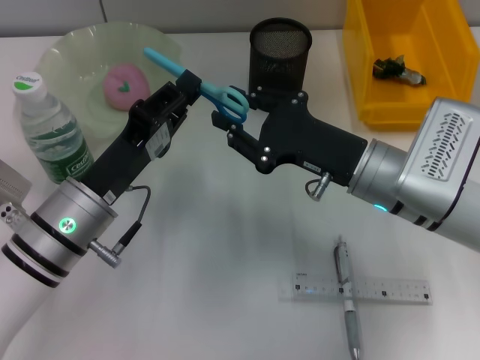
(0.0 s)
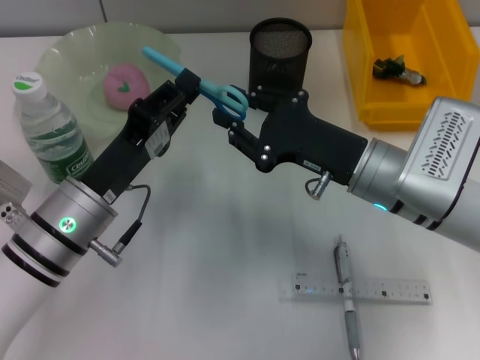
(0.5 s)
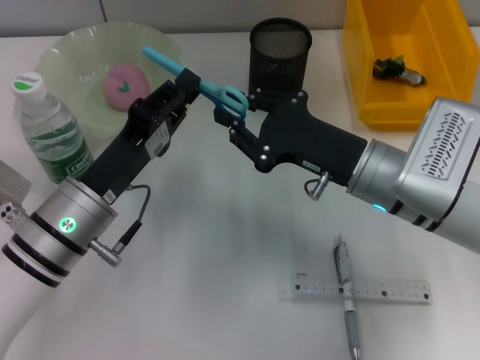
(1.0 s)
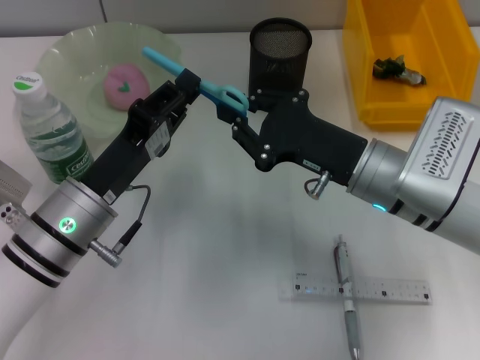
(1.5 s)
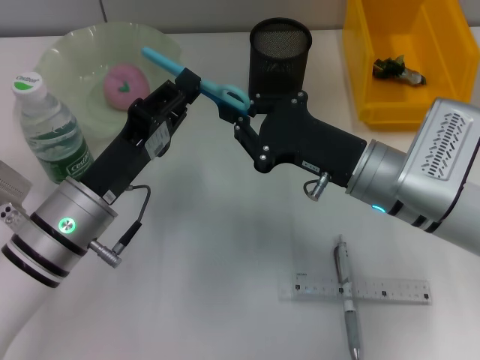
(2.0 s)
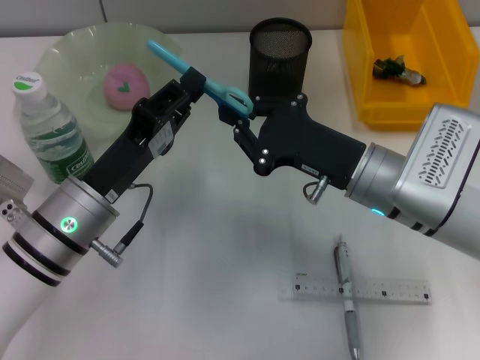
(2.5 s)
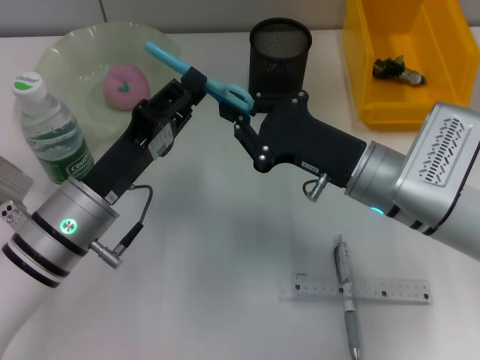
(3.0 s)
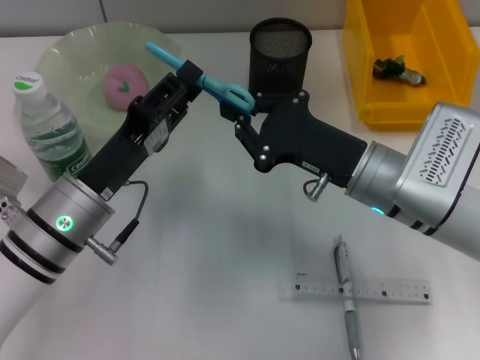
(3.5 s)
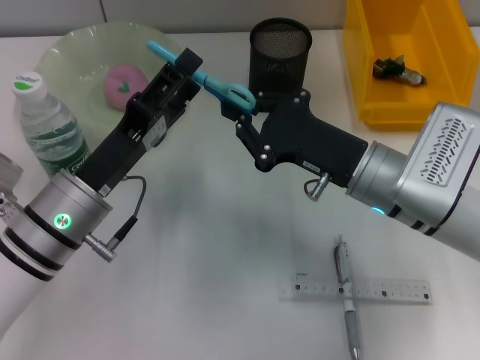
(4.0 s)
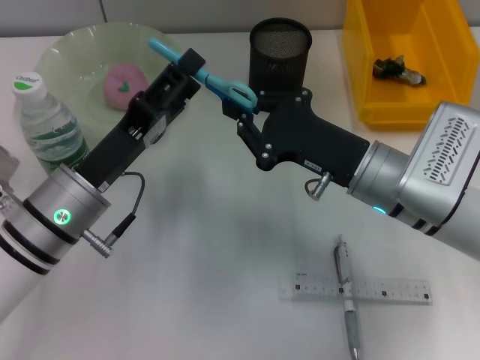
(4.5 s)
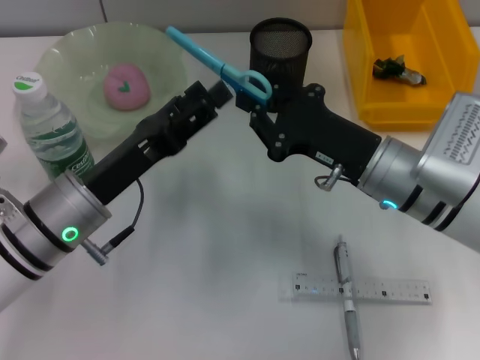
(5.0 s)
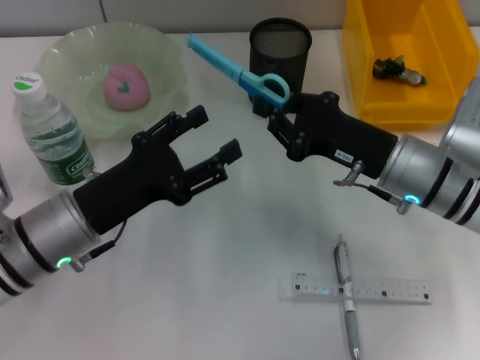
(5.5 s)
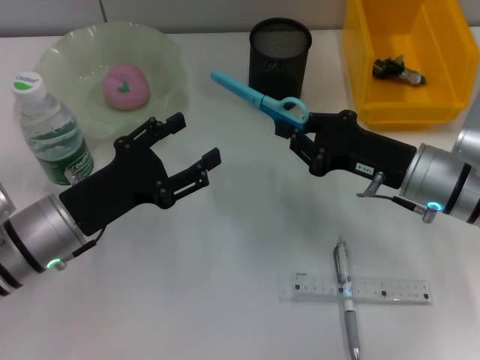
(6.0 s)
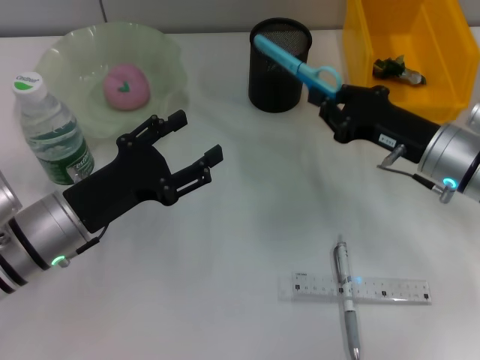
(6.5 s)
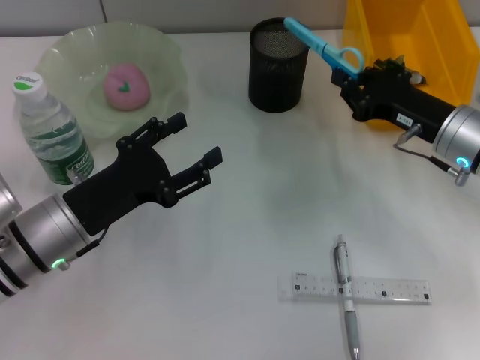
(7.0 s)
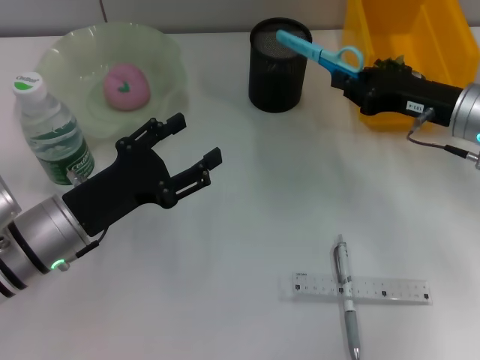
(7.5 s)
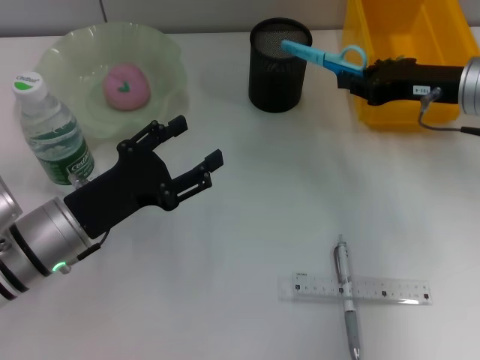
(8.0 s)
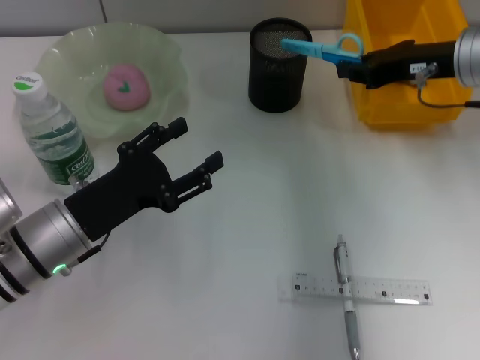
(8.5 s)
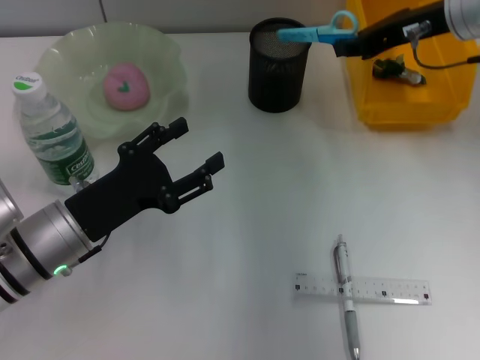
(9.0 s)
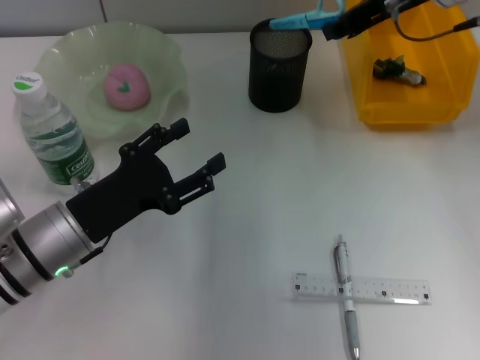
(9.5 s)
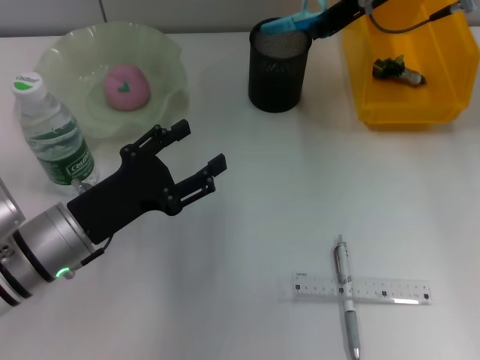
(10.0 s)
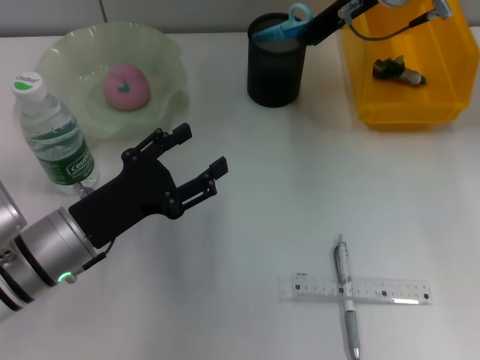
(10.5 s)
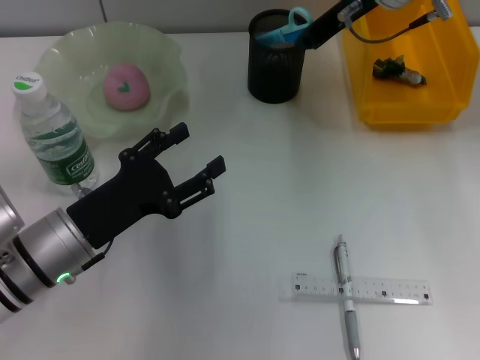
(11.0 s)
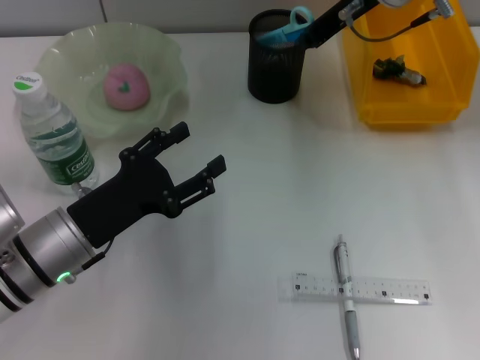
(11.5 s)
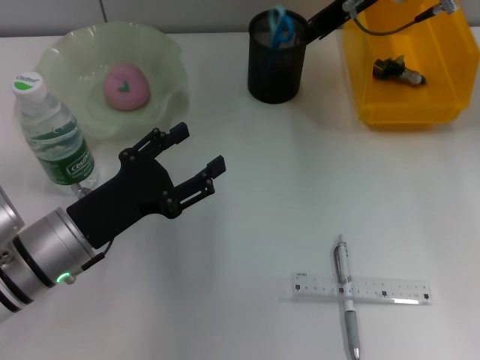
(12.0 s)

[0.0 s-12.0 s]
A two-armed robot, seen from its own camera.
Step, 0.0 to 3.5 s: Pass the blue scissors from the left hand to the right hand.
0.0 to 2.0 s: Both grippers stay about where they are.
2.0 to 4.0 s: The left gripper opens its fingers.
4.0 to 6.0 s: The right gripper travels to the right by roughly 5 cm.
6.0 to 8.0 s: The right gripper goes approximately 10 cm upward and forward.
8.0 to 10.0 s: The right gripper travels upward, to the left and forward by some 15 cm.
10.0 to 12.0 s: The grippers stay close to where they were, moving slightly.

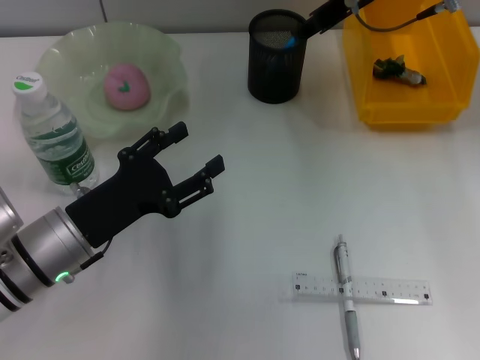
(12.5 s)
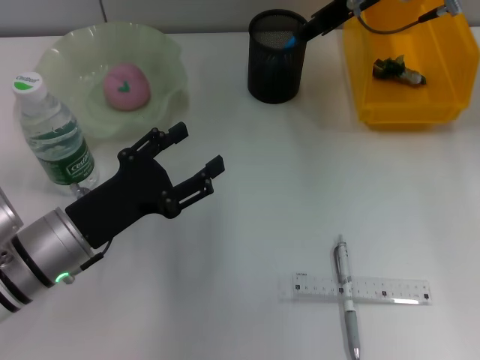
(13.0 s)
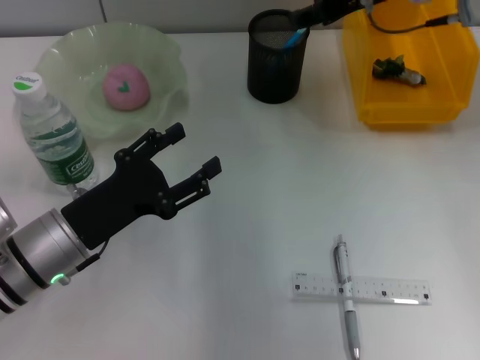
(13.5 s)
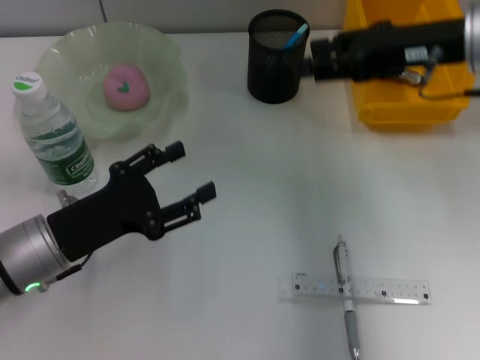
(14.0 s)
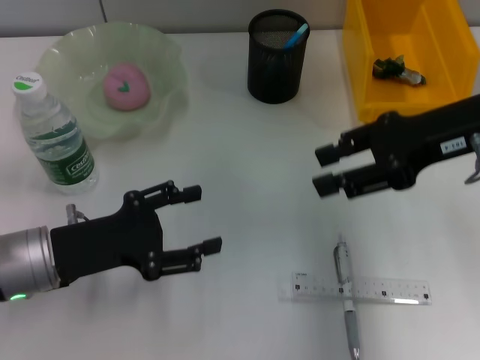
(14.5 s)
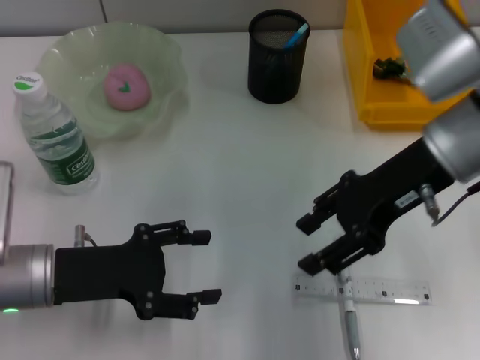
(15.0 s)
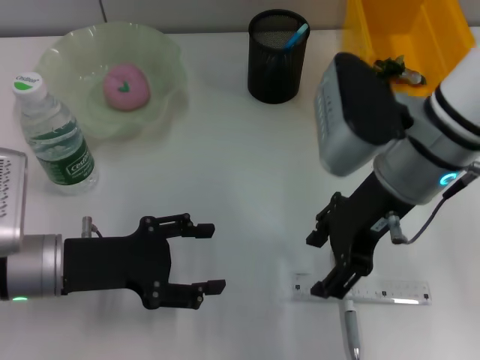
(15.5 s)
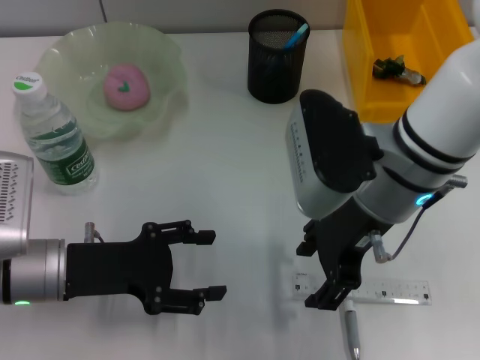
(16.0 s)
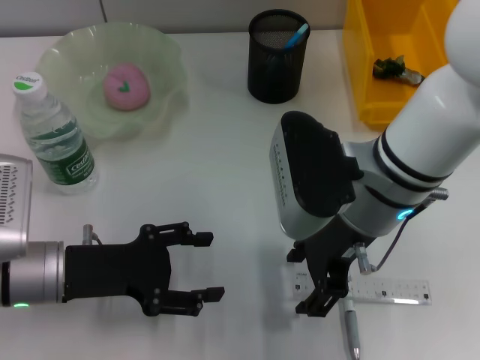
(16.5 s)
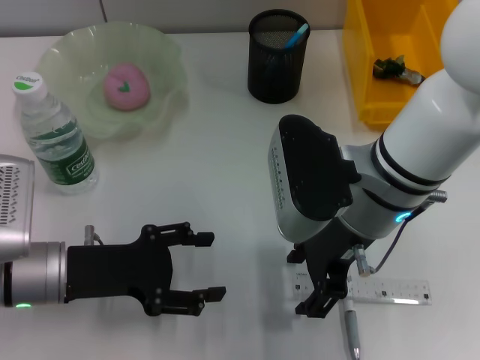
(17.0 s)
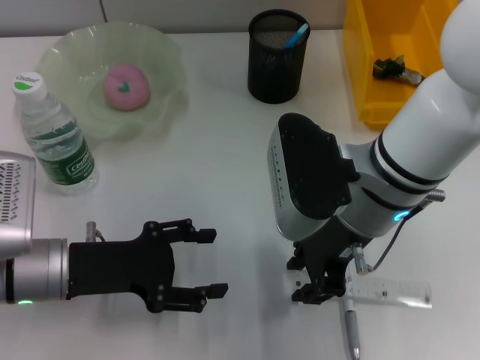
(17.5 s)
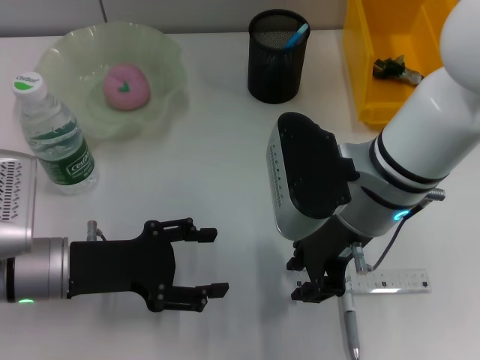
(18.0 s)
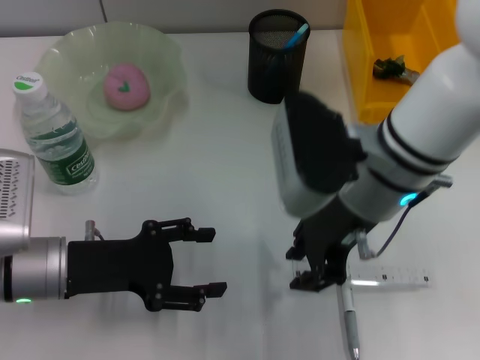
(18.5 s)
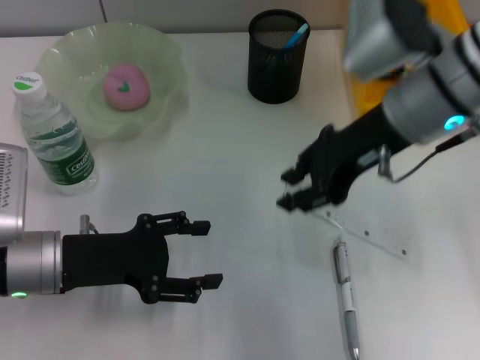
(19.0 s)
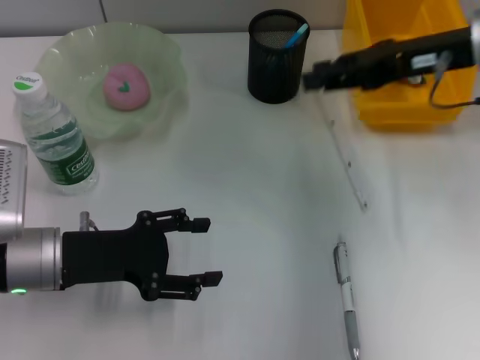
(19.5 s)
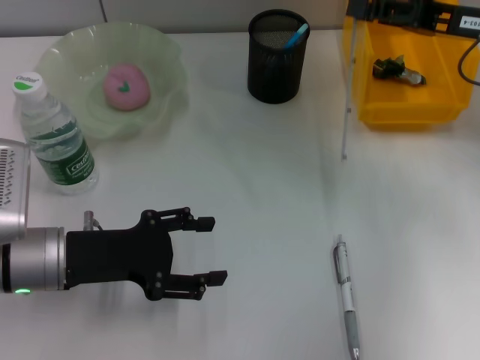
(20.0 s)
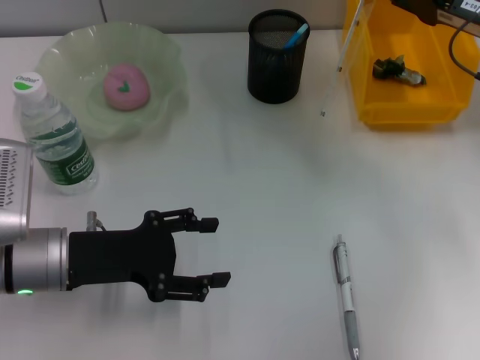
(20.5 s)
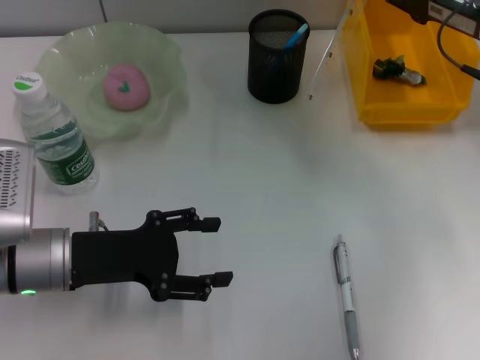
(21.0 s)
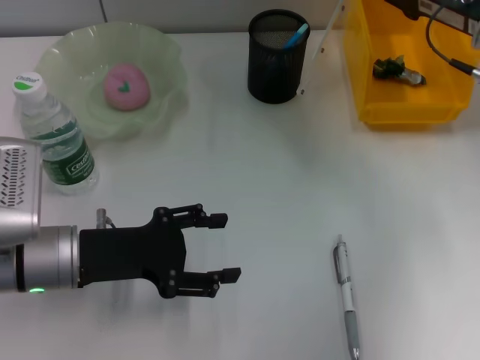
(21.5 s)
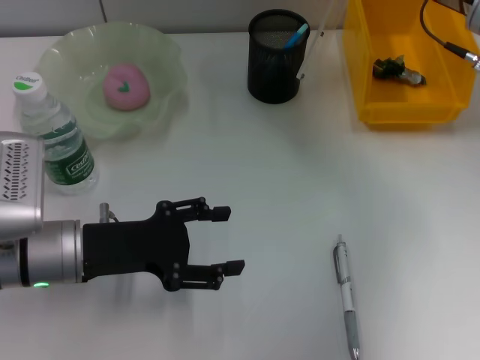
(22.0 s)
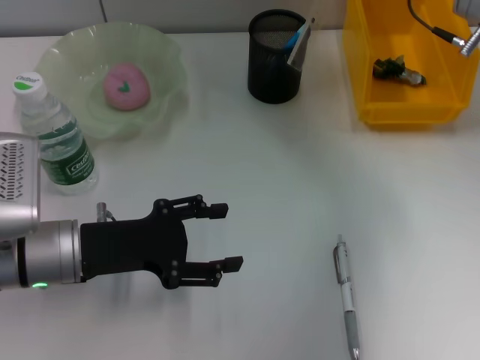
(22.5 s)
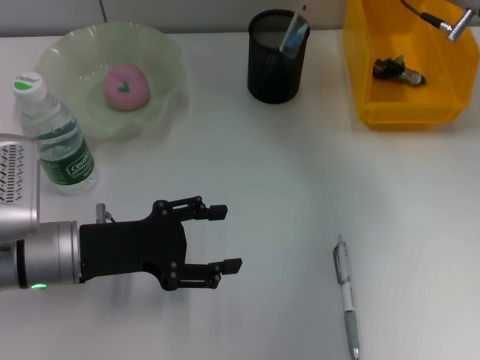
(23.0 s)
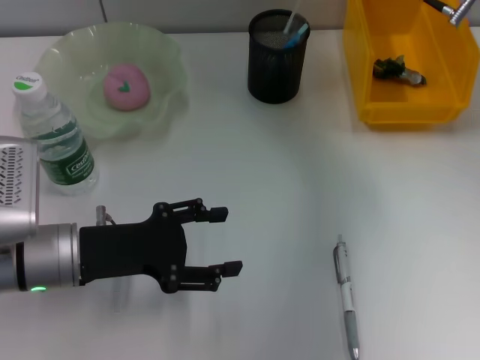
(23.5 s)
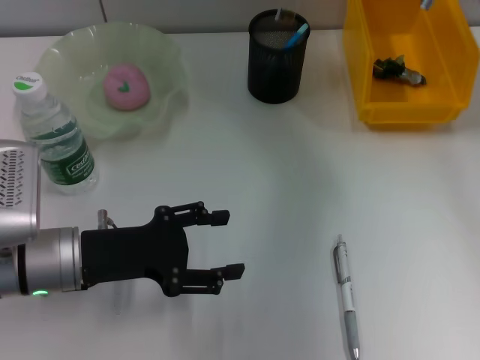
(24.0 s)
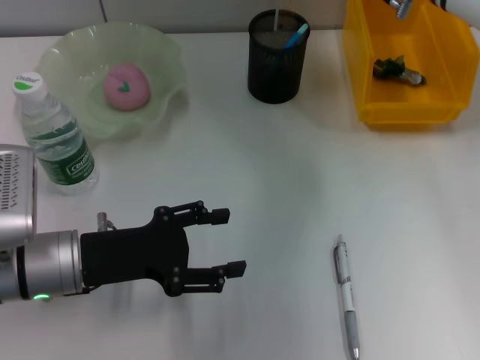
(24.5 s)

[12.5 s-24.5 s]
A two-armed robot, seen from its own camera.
Step, 12.5 to 17.0 s: Grab the ruler with the right hand.
12.5 to 14.5 s: The right gripper heads backward and to the right, covering some 15 cm.
14.5 to 16.5 s: The right gripper travels to the left by about 15 cm.
16.5 to 18.5 s: The right gripper closes up.
18.5 to 20.5 s: The right gripper is displaced to the right and forward by about 20 cm.
20.5 to 22.5 s: The right gripper ends up roughly 5 cm from where it was.
22.5 to 24.5 s: The right gripper is displaced to the left by some 5 cm.

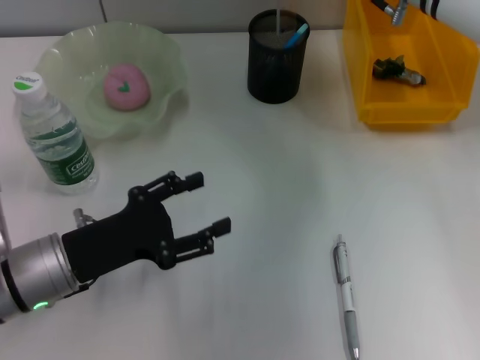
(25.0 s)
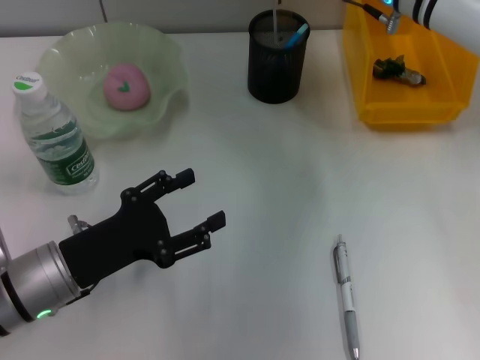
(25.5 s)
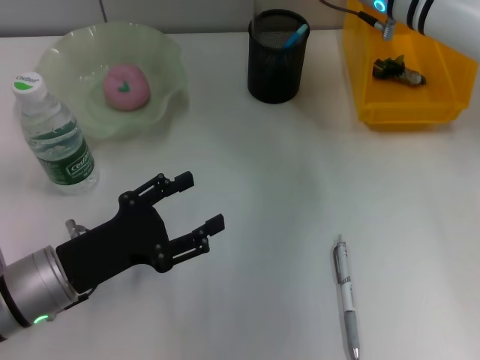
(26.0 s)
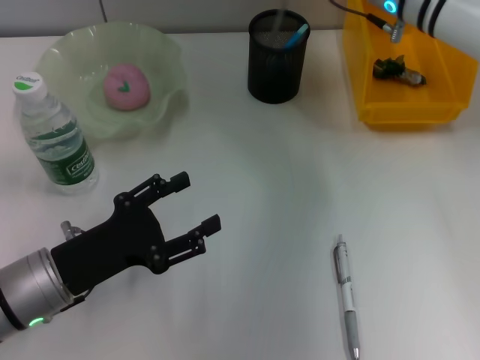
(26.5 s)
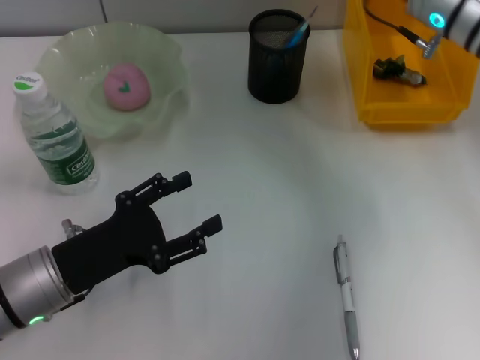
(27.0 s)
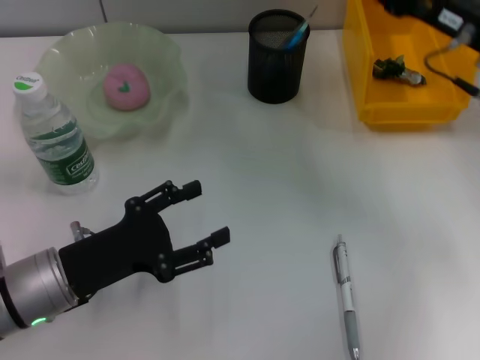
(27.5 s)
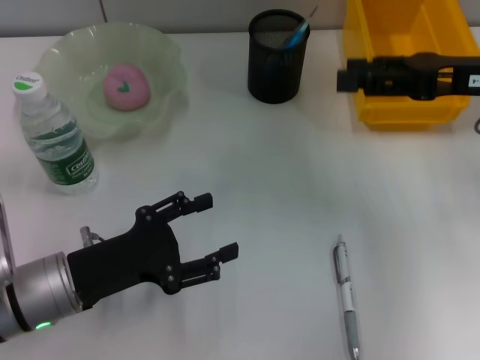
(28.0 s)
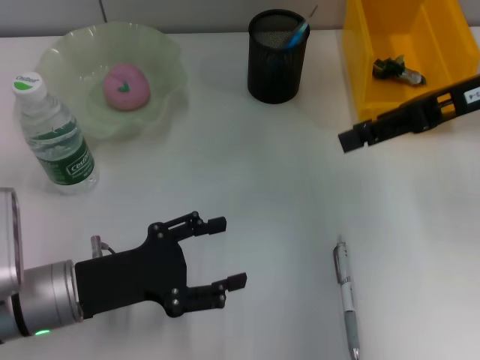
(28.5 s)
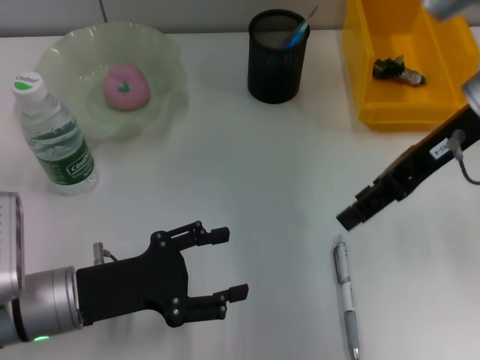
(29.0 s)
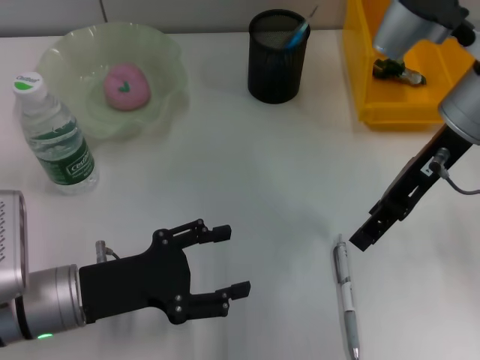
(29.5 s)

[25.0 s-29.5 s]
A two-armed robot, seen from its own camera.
25.0 to 27.0 s: The right gripper shifts by some 5 cm, and opens its fingers.
27.0 to 29.5 s: The right gripper shifts some 10 cm backward, and travels to the right and back again, about 5 cm each way.
